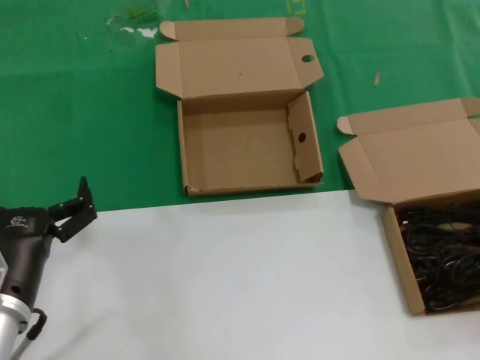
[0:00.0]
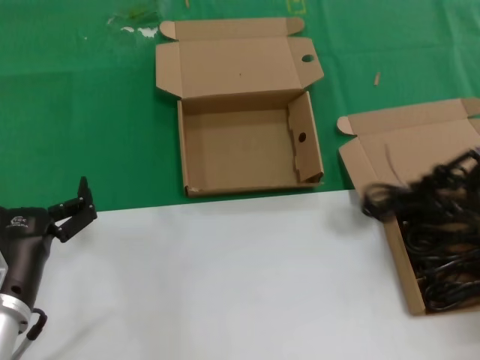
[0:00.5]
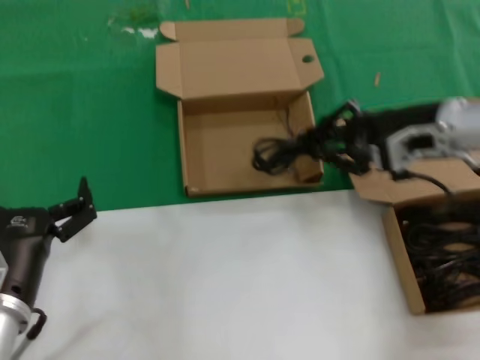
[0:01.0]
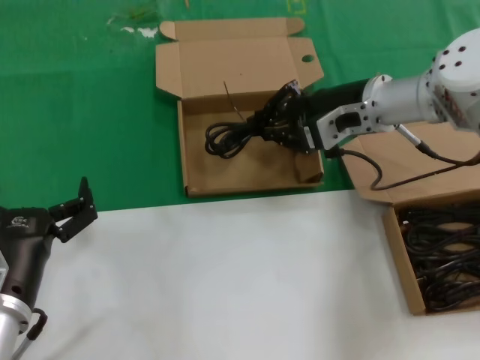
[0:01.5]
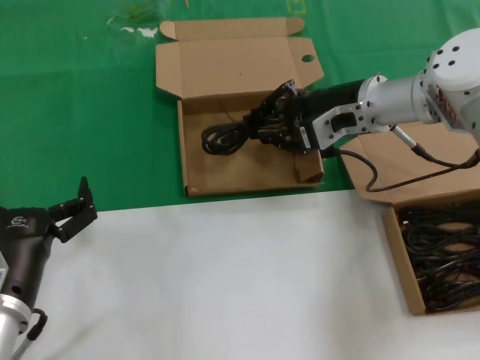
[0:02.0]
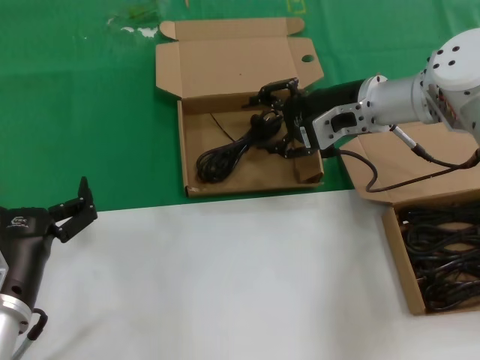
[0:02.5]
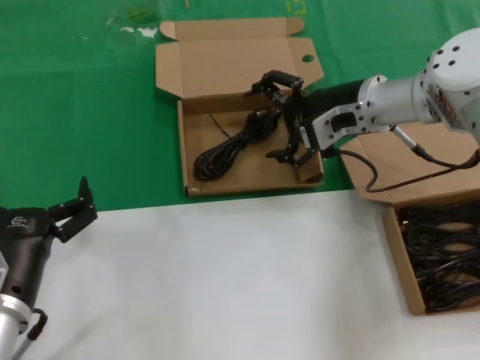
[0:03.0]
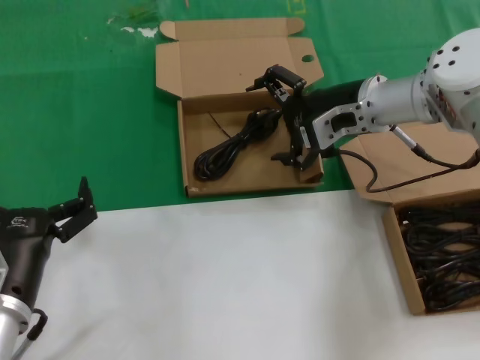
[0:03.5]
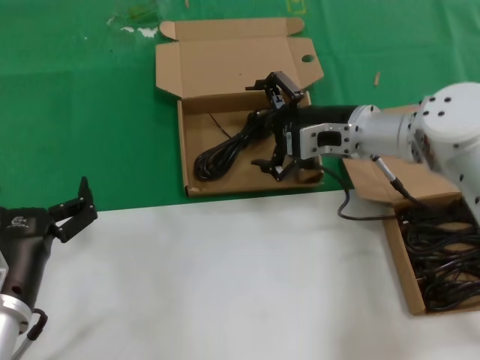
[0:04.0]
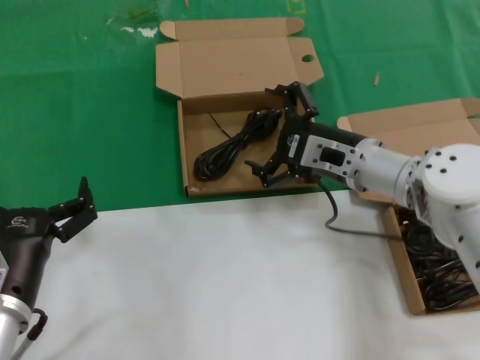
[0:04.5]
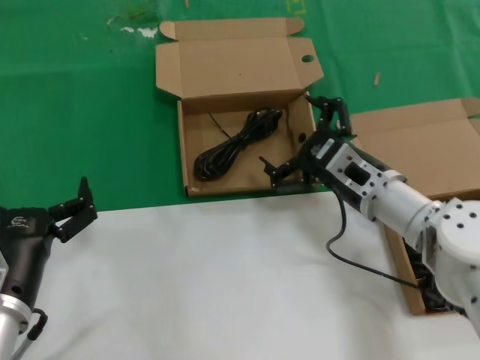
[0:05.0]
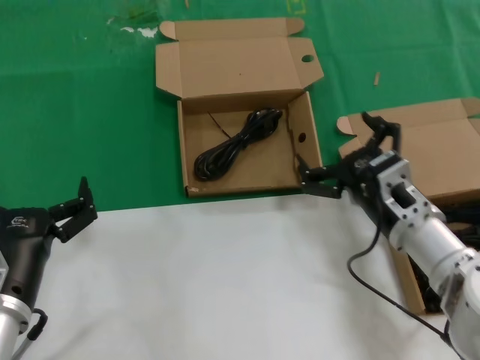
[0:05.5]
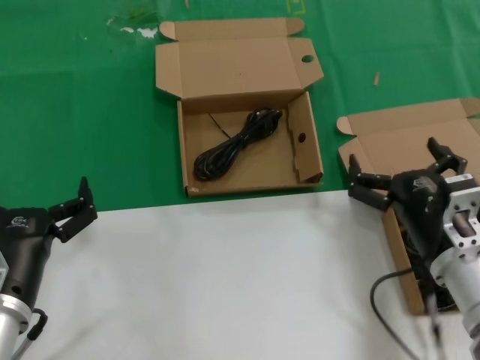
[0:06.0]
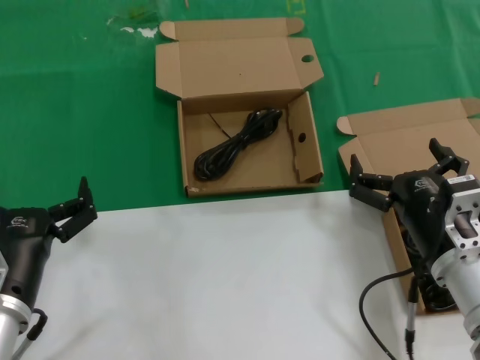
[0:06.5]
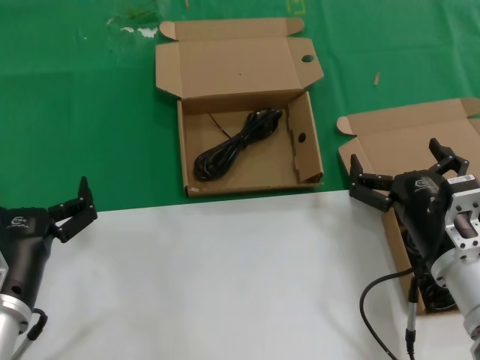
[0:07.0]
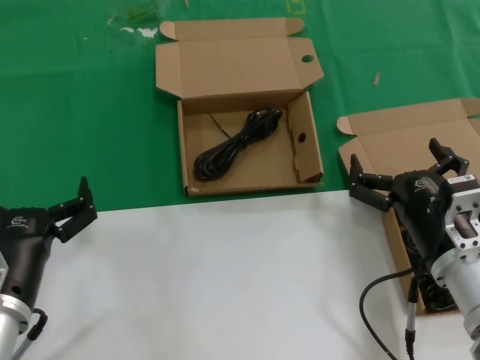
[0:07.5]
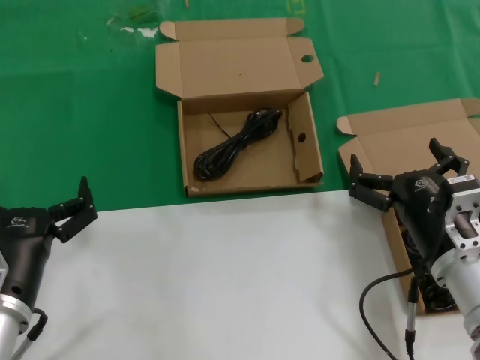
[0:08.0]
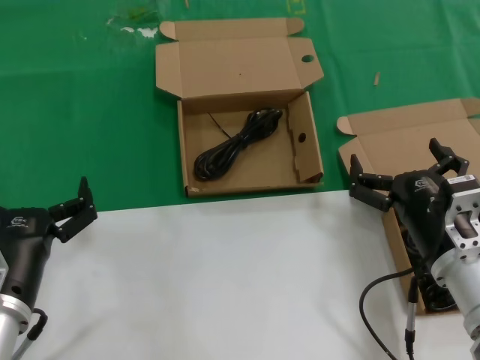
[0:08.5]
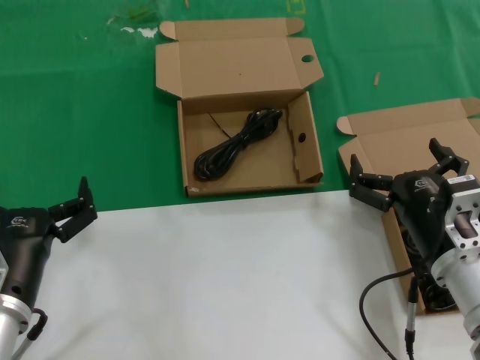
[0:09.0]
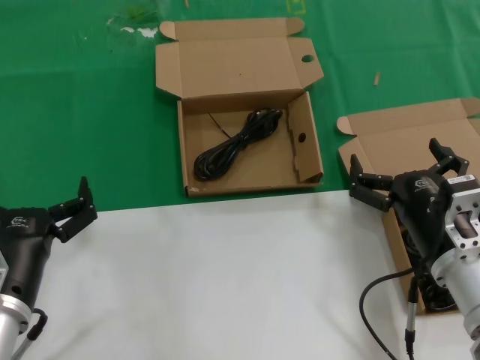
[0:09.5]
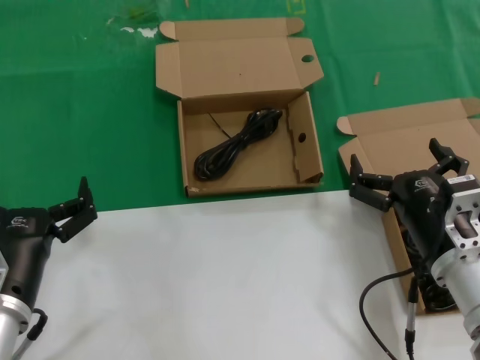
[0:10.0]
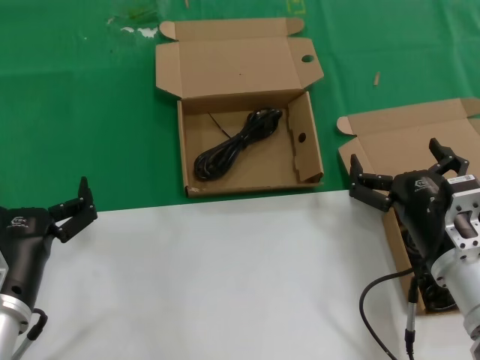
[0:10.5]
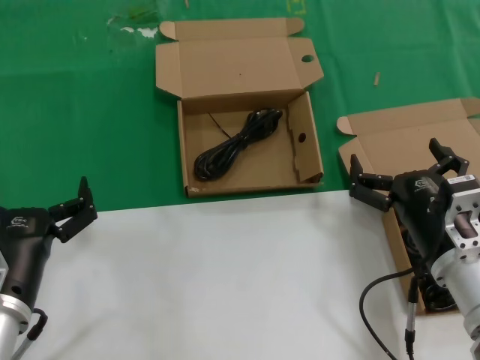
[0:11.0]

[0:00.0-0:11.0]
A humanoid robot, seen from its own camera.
Task of the whole recording: take the parts from the box containing them and put them into an empty box.
Step, 0:00.5 to 0:03.0: Place the data cable in the another box.
0:00.0 to 0:02.0: The right hand shifts some 35 cm to the left and forward.
0:02.0 to 0:03.5: The two hands keep their place.
0:03.5 to 0:05.5: The right hand shifts roughly 20 cm backward and downward.
0:05.5 to 0:07.5: The right hand heads backward, covering about 5 cm.
0:07.5 to 0:11.0: Both hands stay put.

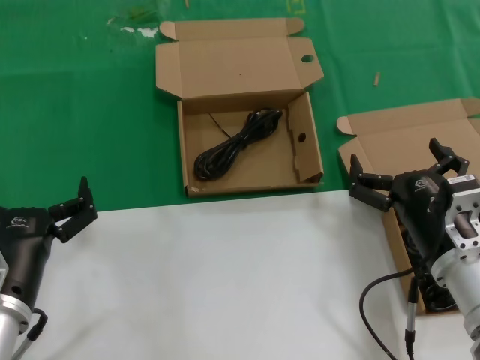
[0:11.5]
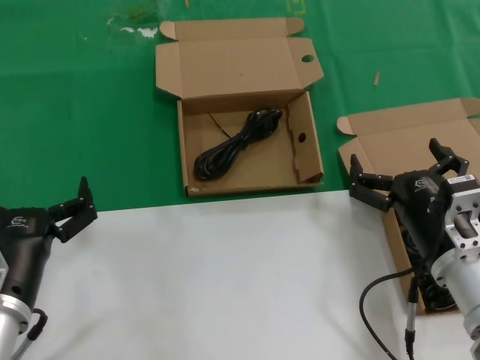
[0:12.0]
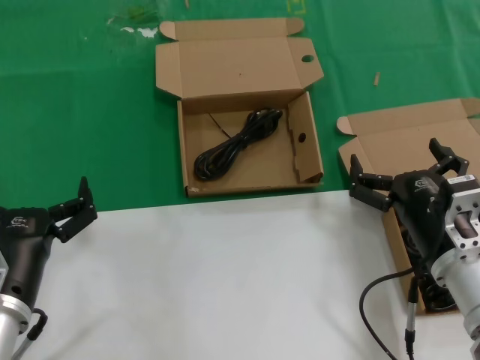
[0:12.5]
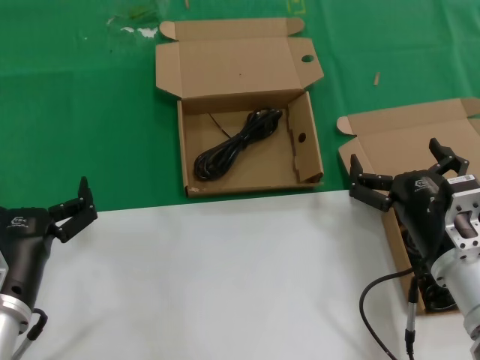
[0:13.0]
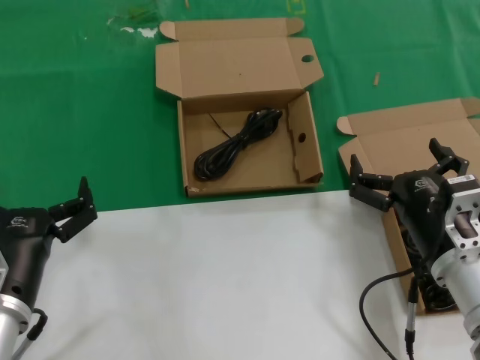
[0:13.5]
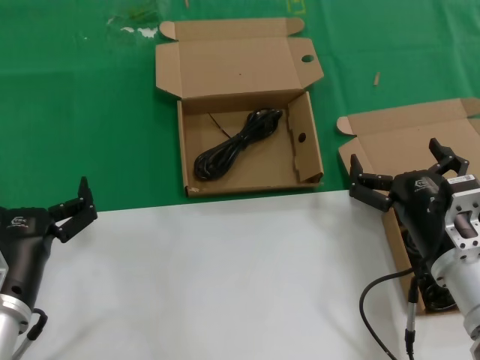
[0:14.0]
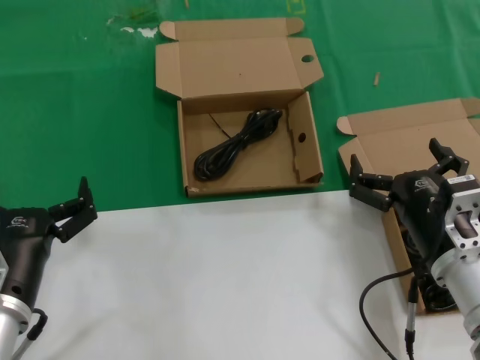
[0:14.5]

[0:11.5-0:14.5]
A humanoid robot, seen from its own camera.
Task of the whole recording: take the parts from the box containing them and put them into an empty box.
0:11.5 to 0:14.5: Neither hand changes place.

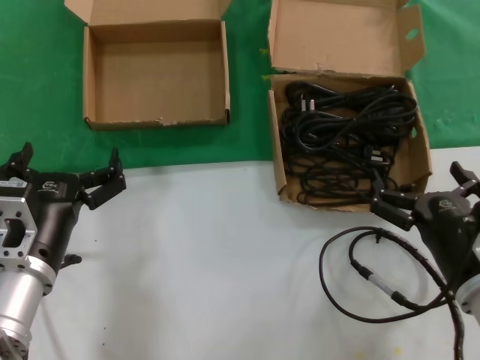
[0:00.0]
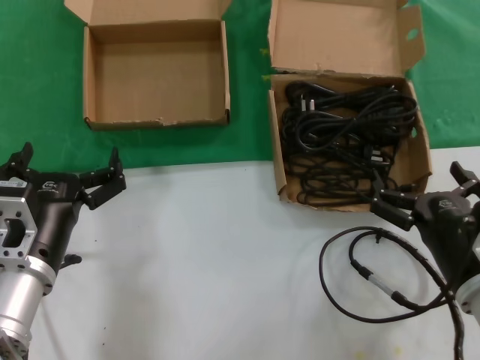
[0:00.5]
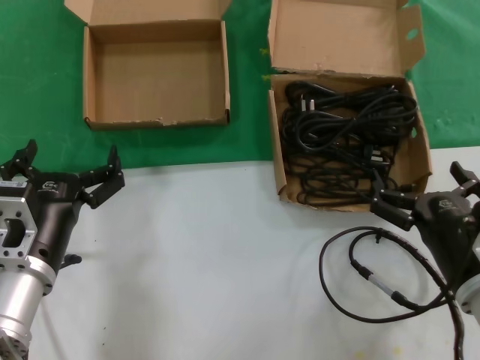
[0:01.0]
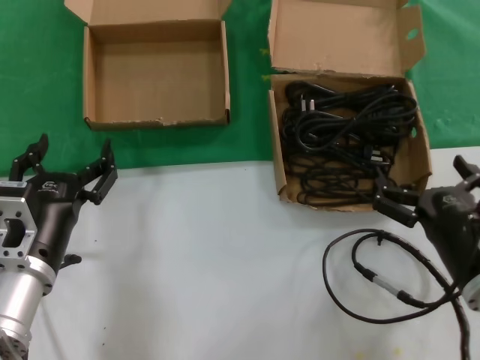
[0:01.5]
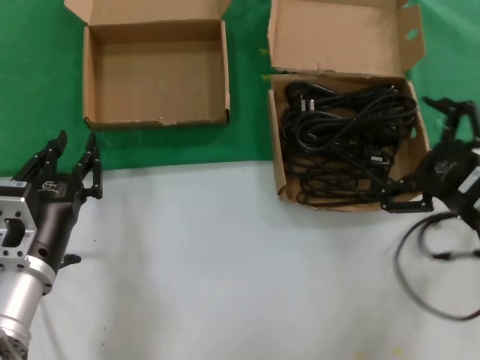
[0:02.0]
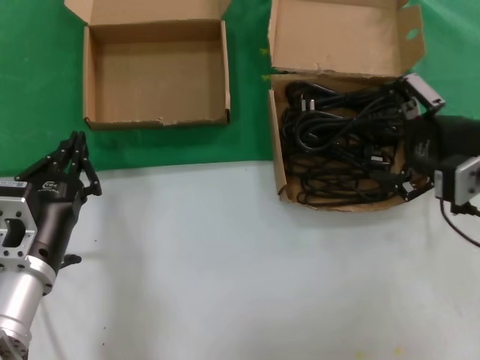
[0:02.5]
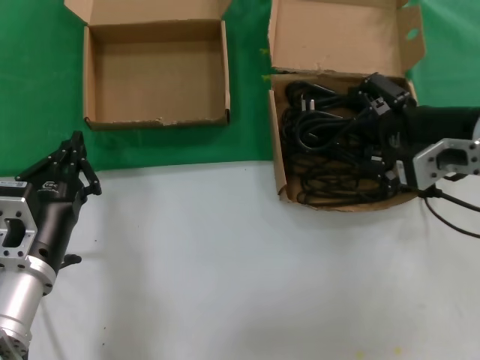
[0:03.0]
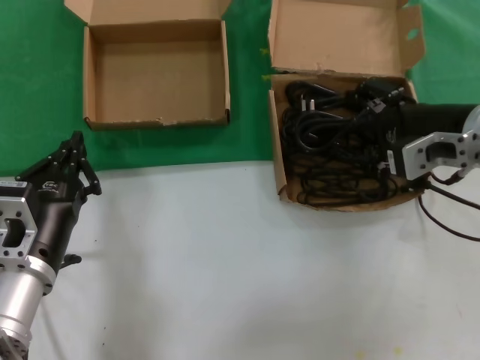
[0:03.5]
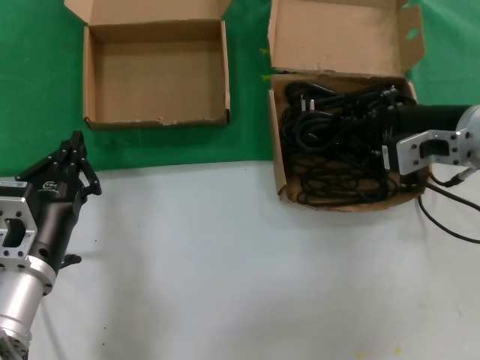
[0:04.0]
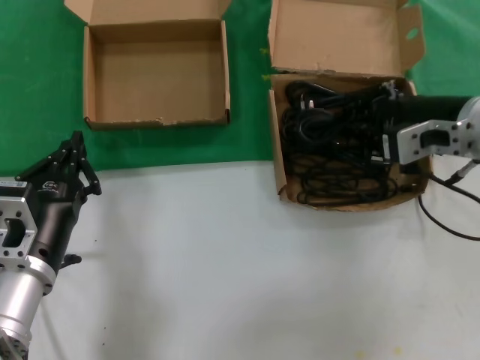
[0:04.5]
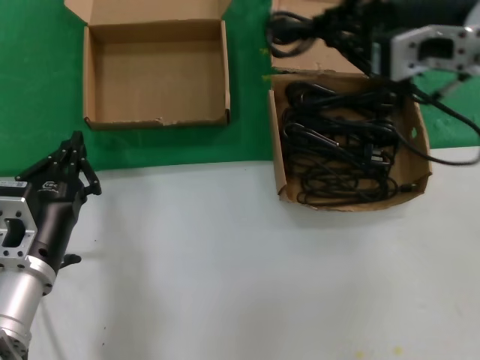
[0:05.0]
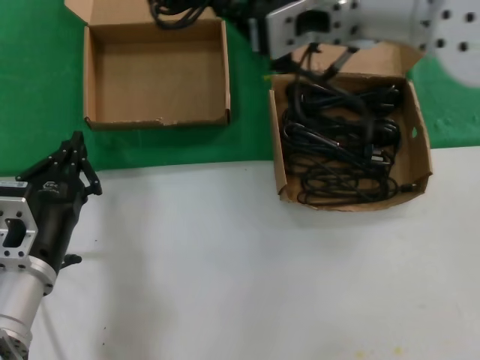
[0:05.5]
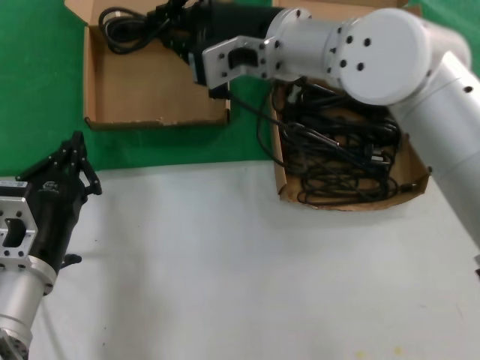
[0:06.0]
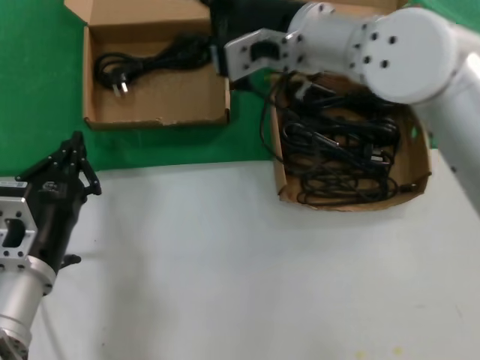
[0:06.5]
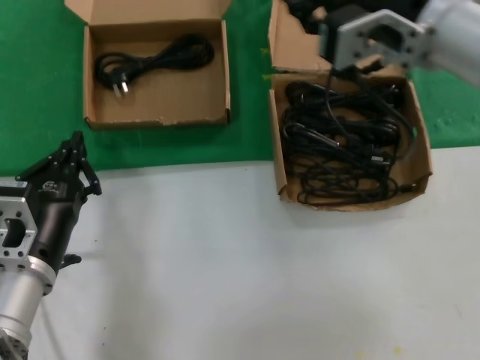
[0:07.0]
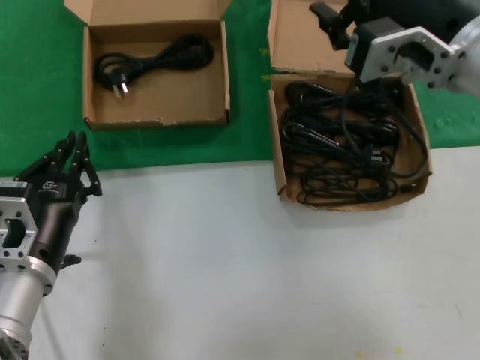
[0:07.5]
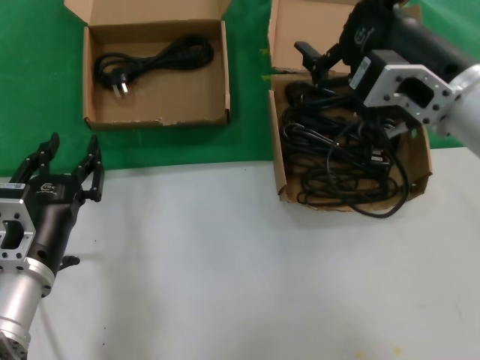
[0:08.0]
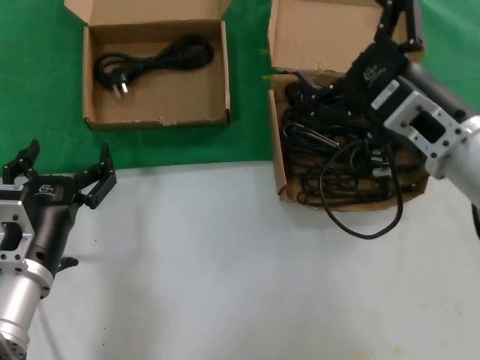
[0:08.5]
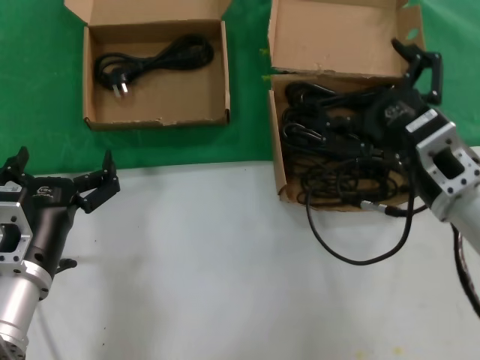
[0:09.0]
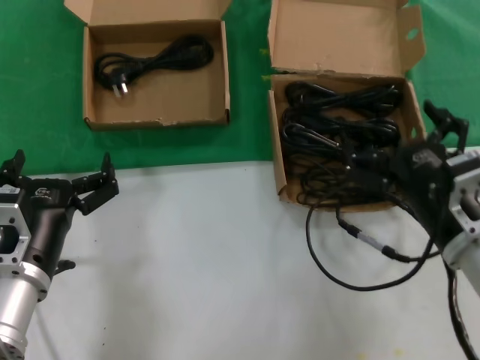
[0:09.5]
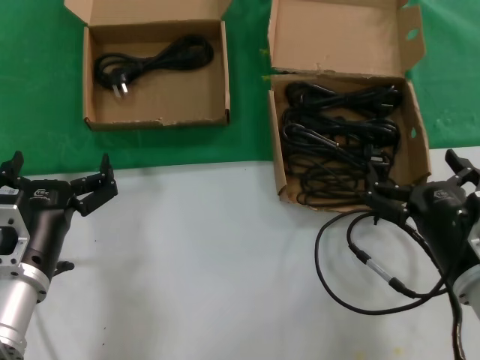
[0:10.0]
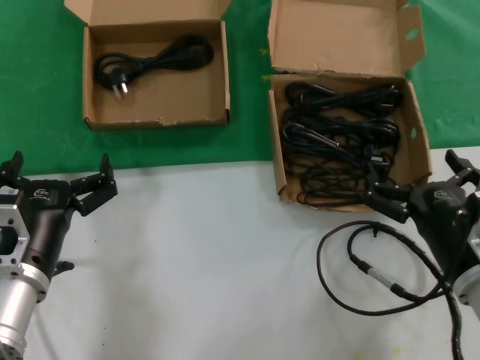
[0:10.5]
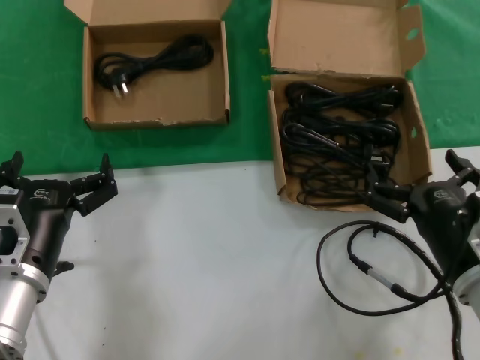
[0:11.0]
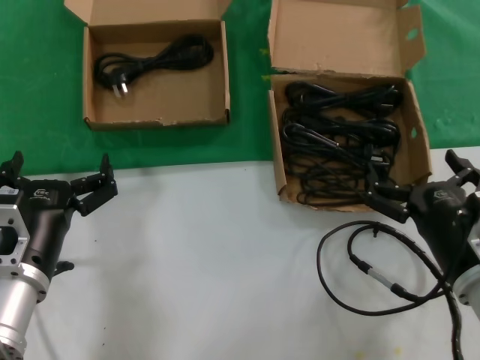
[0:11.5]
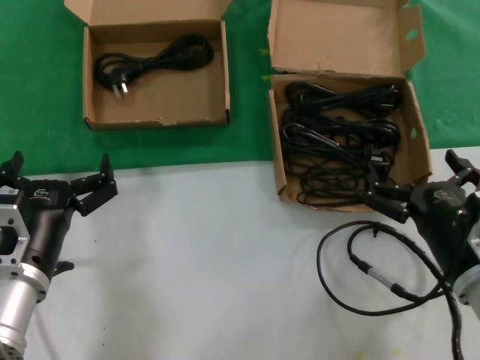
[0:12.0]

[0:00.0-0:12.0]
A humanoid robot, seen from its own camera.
Task of the whole recording: take the parts from the box containing them and put them into an empty box.
Step, 0:00.0 to 0:04.0: Grasp the data cable.
Step, 0:04.5 to 0:06.0: Place the data cable in the another box.
0:00.0 to 0:02.0: The right hand moves upward and to the right, roughly 10 cm.
0:02.0 to 0:04.0: The right hand shifts some 15 cm forward and upward.
0:04.0 to 0:06.0: The right hand is displaced to the left by roughly 20 cm.
0:06.0 to 0:08.0: The right hand heads to the right and backward, covering roughly 20 cm.
0:08.0 to 0:10.0: The right hand travels downward by approximately 20 cm.
0:10.0 to 0:12.0: Both hands stay about where they are.
